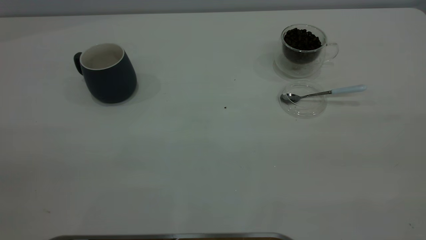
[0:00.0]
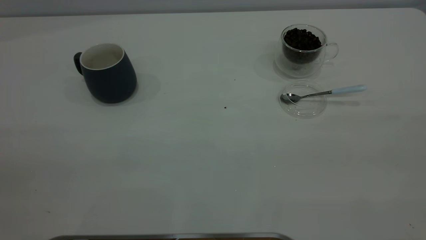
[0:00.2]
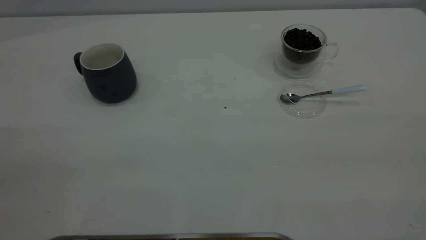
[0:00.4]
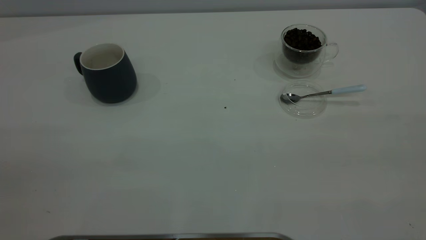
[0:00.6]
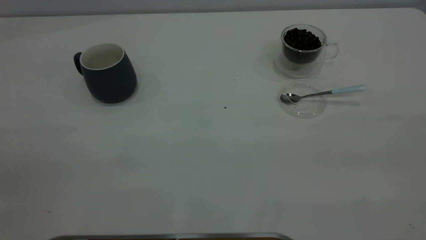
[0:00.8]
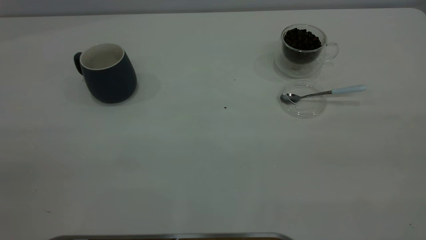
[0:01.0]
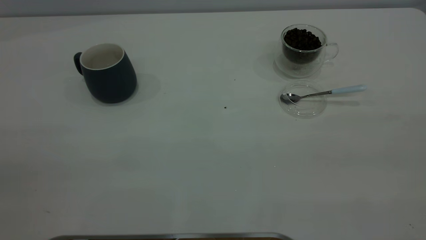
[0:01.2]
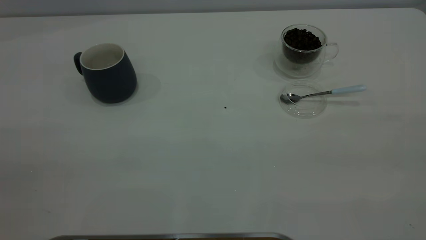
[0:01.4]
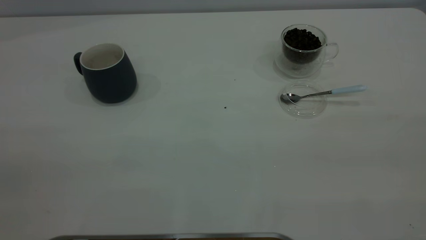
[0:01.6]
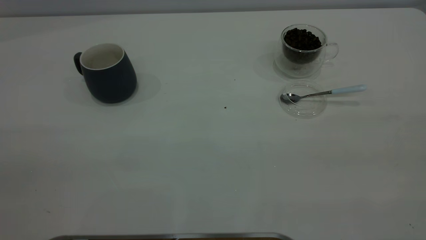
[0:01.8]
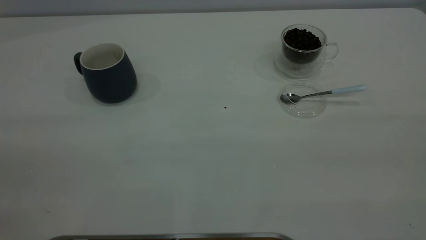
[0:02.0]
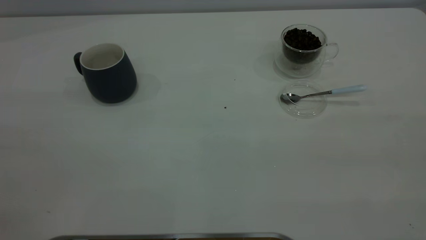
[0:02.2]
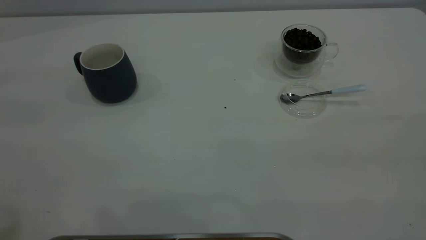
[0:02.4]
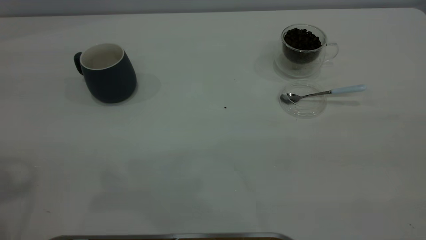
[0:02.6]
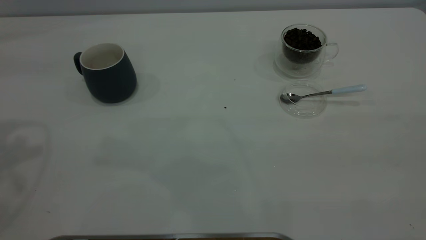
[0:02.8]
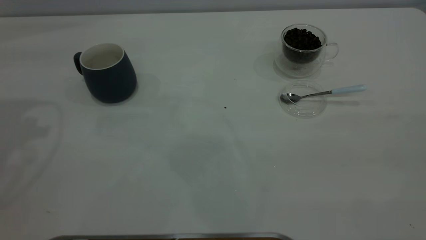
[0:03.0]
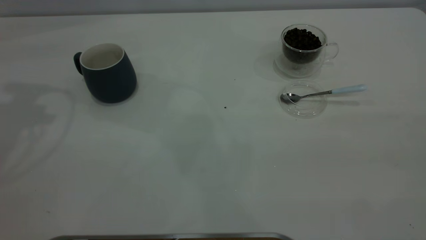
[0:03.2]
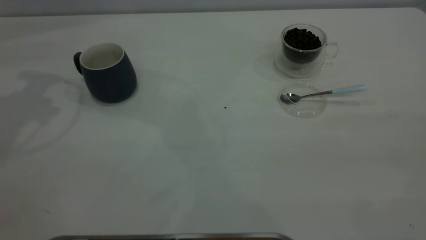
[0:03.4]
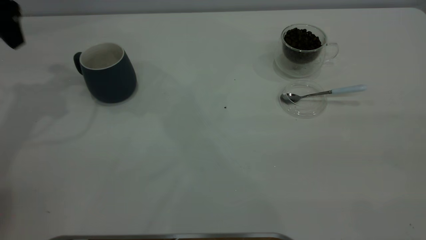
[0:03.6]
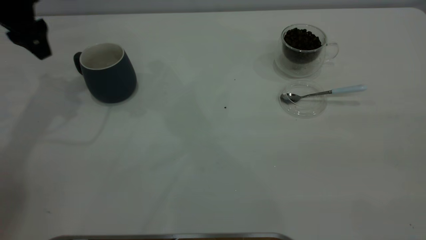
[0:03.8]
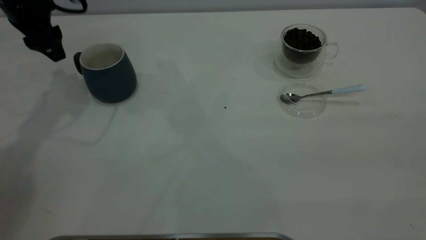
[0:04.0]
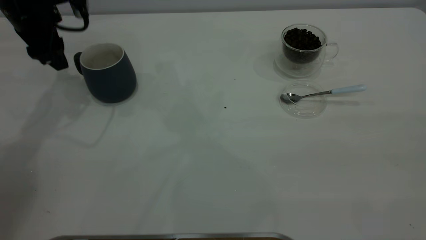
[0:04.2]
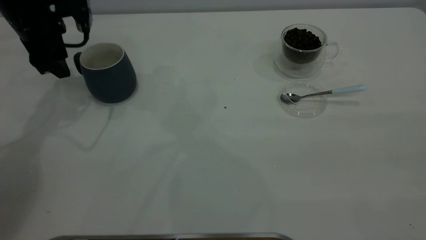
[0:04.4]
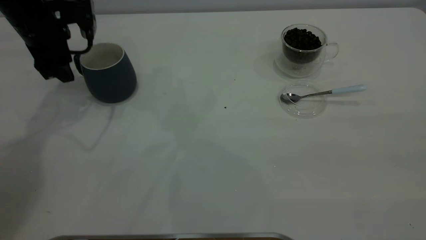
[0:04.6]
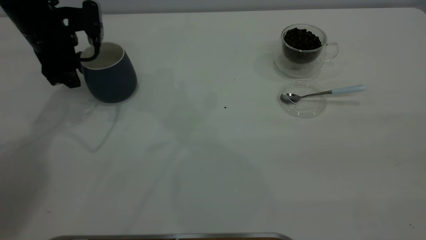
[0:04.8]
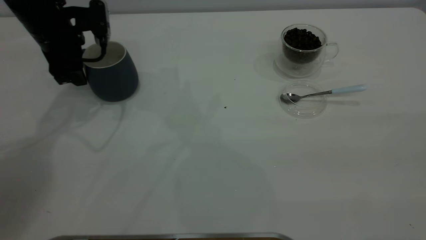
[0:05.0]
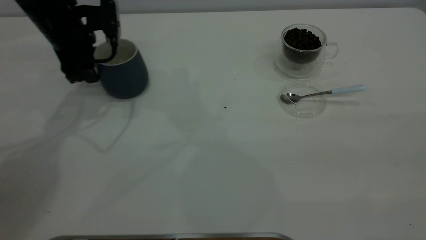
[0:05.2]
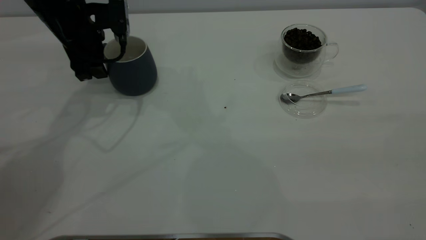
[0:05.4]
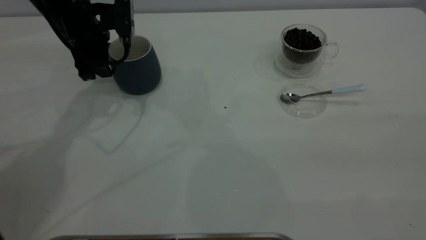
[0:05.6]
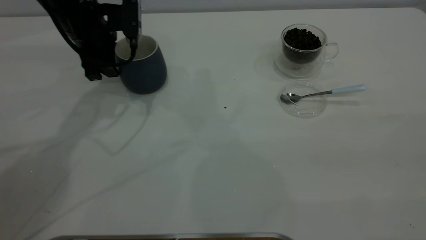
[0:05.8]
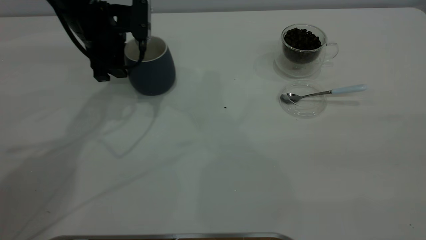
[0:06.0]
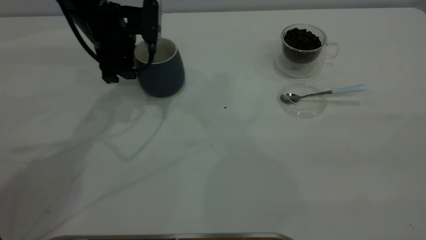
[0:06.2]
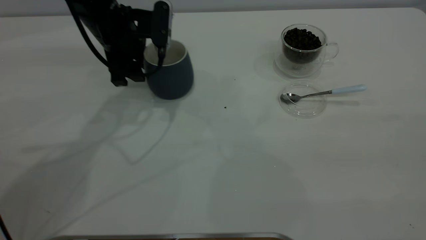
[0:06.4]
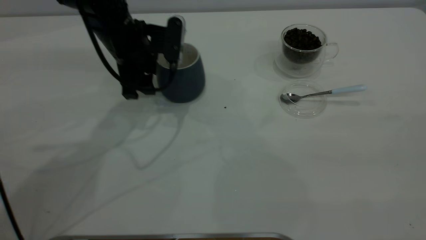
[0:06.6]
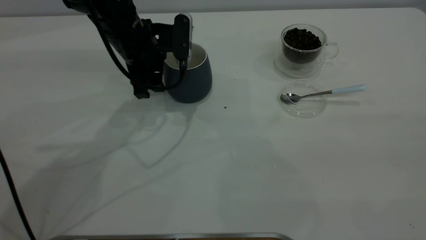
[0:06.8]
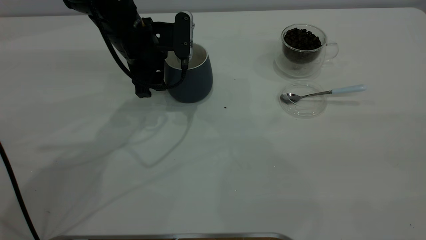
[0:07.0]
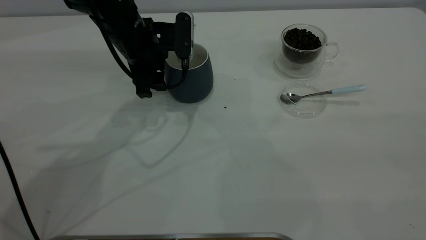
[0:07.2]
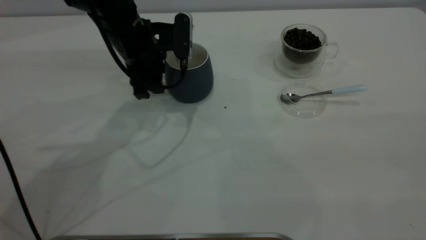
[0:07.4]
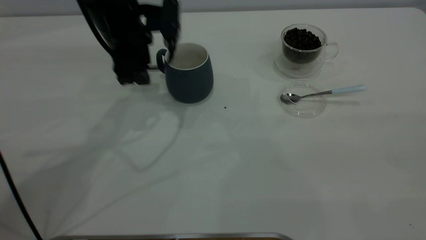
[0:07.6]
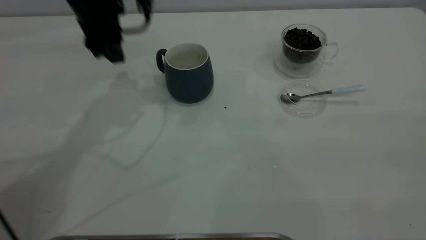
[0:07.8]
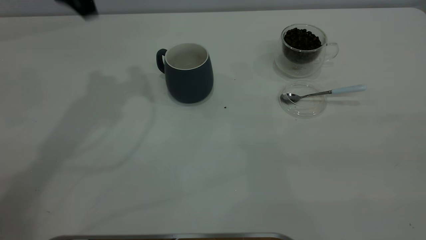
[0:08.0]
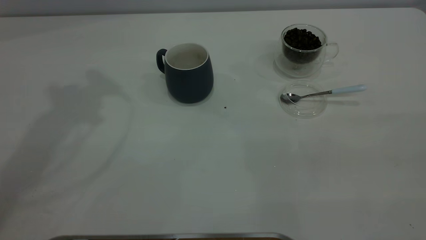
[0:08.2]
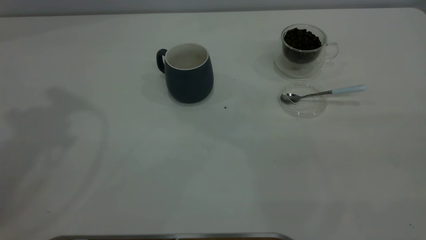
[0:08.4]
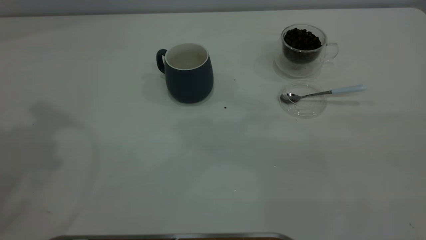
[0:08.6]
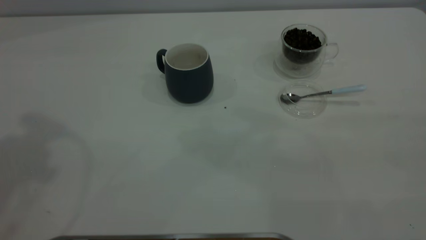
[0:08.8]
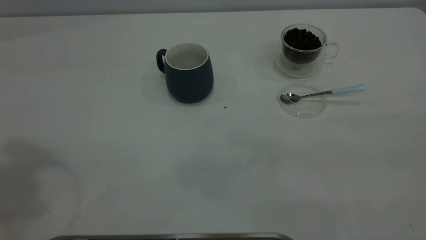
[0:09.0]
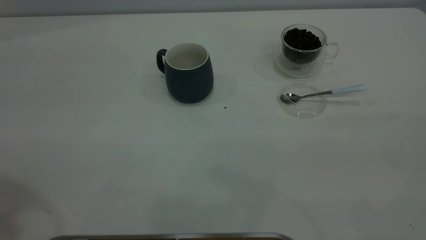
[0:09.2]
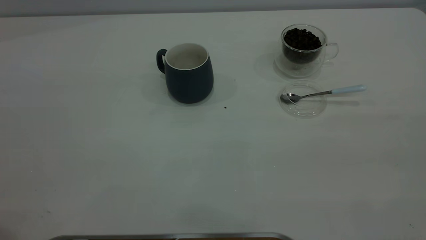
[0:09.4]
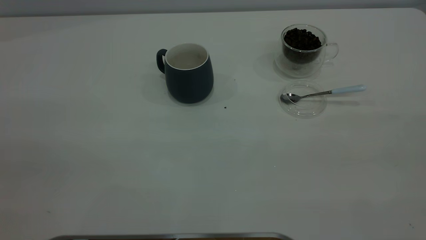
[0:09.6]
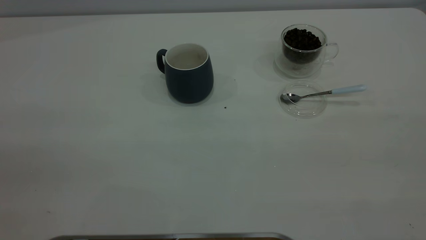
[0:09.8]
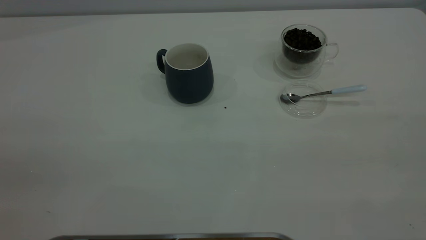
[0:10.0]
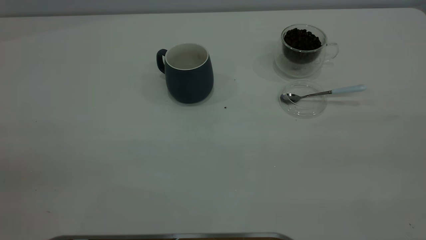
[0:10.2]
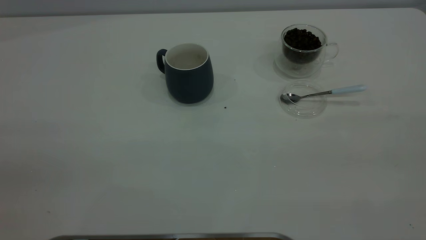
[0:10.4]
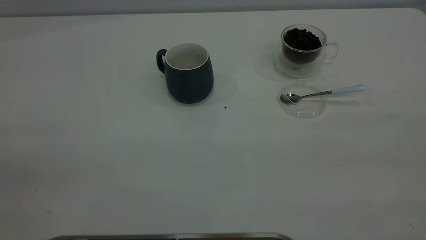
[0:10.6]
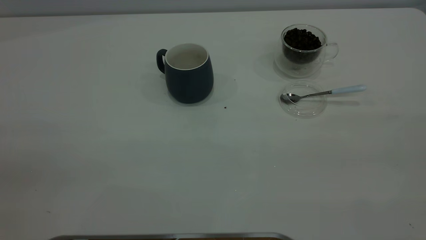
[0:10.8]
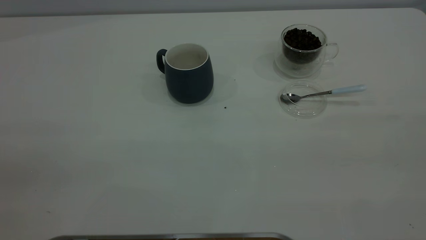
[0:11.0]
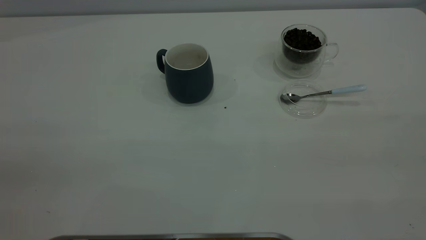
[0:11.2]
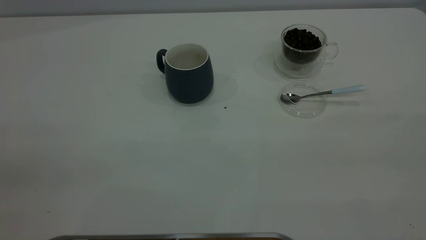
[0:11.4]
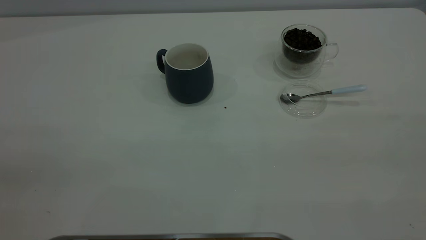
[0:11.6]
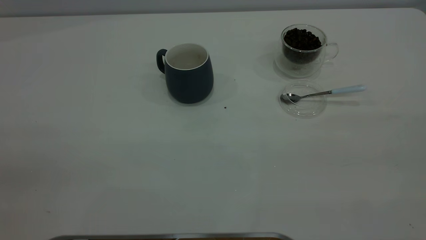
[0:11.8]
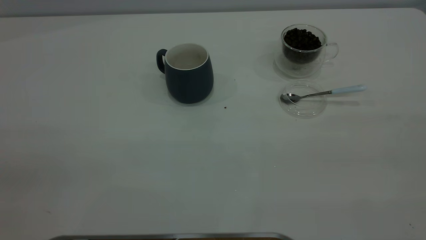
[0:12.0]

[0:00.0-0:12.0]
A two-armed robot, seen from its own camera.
Task of the whole recording: the left gripper place the grey cup in the center of the table, the right gripper take the blue spoon from the cup lid and scoop out the coffee beans from the coffee cup and put them into the grey cup, the right gripper put the spoon back into the cup lid.
Step, 0:00.0 to 0:07.6: Move the cup to the center of view.
0:00.0 to 0:01.6: Both grippers stay put.
0:03.0 to 0:04.4: The left gripper travels downward and forward by roughly 20 cm.
0:04.4 to 0:06.0: The left gripper heads to the right, covering some 10 cm.
0:07.6 to 0:09.0: The left gripper travels upward, backward and to the left by approximately 40 cm.
0:10.4 to 0:12.0: The two grippers keep their place.

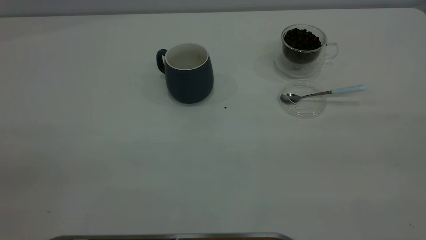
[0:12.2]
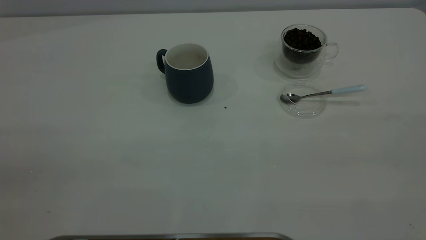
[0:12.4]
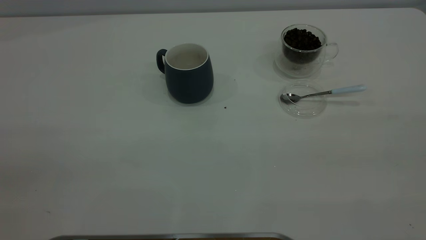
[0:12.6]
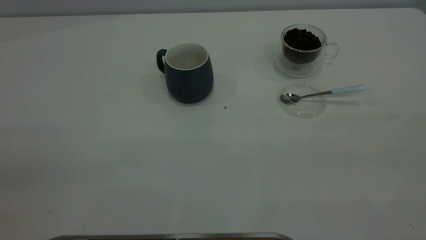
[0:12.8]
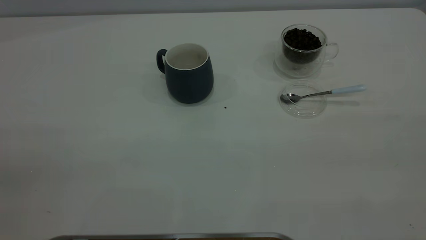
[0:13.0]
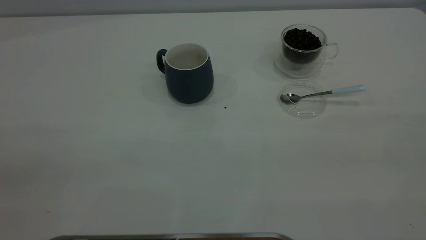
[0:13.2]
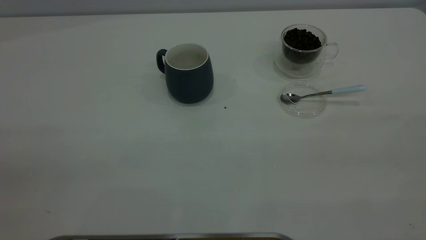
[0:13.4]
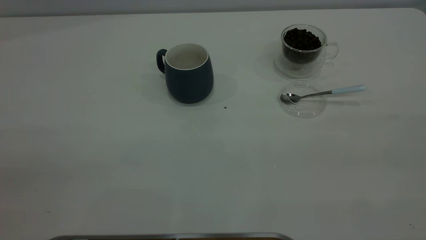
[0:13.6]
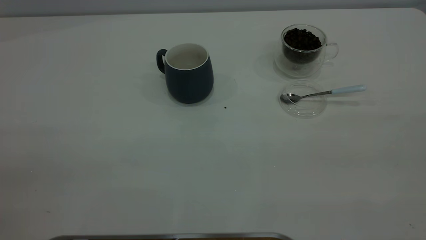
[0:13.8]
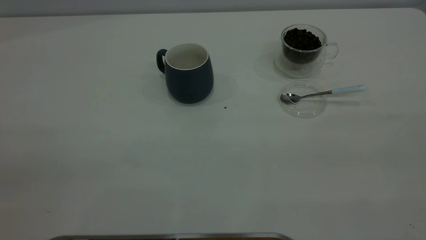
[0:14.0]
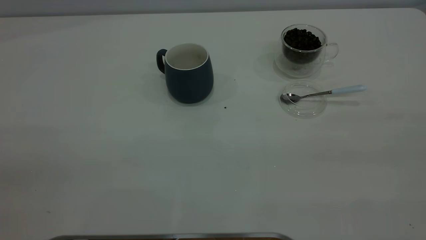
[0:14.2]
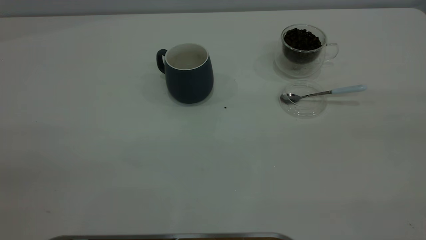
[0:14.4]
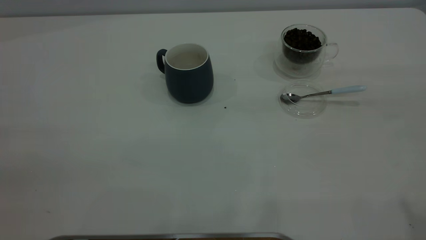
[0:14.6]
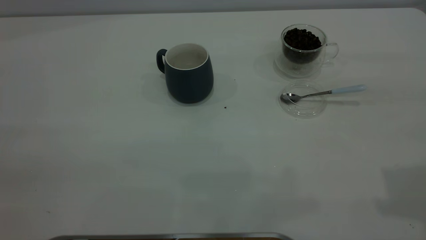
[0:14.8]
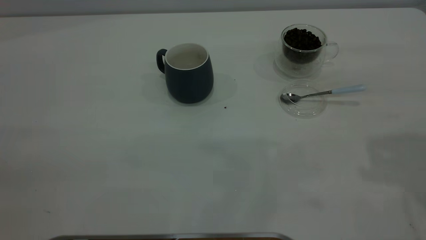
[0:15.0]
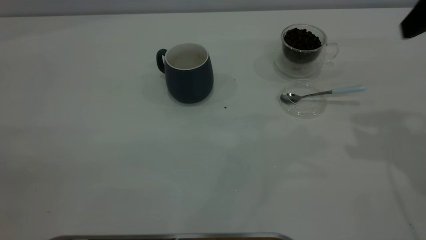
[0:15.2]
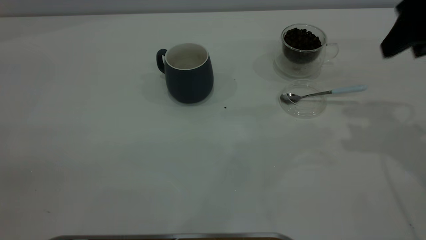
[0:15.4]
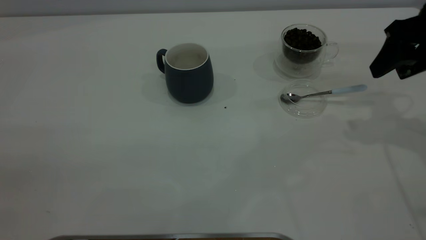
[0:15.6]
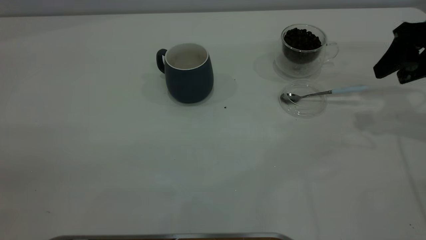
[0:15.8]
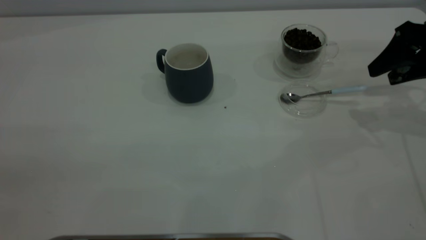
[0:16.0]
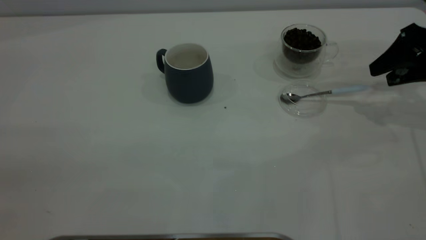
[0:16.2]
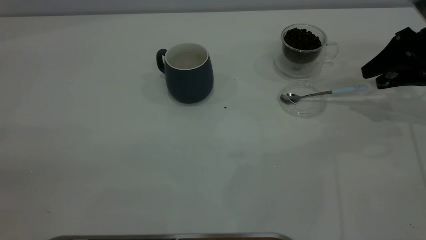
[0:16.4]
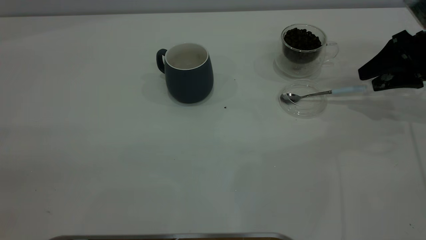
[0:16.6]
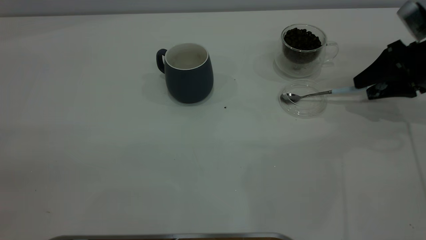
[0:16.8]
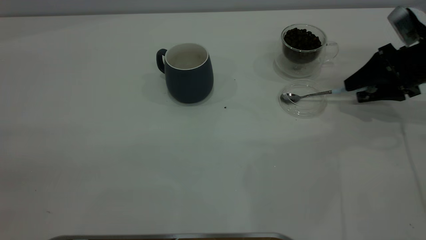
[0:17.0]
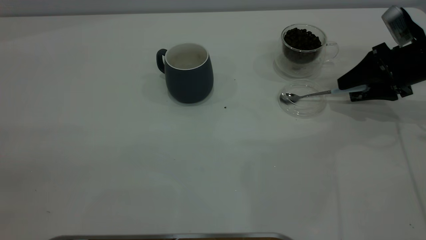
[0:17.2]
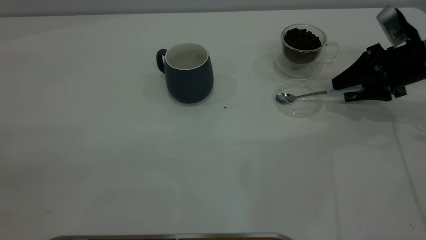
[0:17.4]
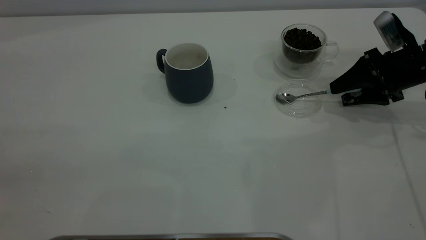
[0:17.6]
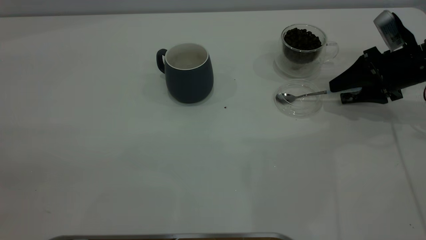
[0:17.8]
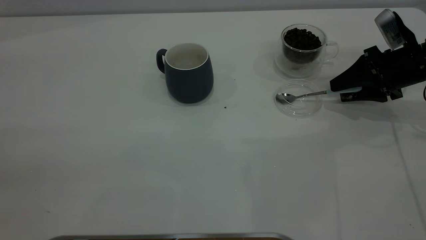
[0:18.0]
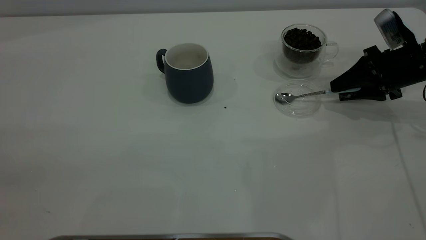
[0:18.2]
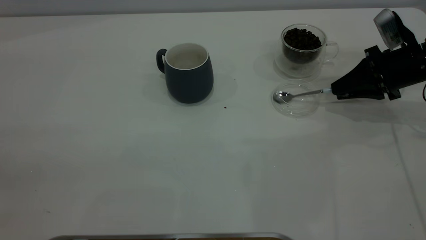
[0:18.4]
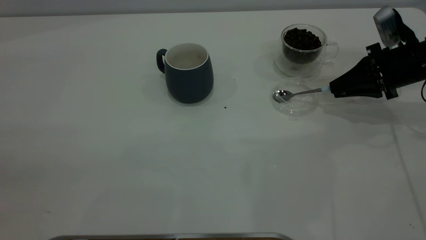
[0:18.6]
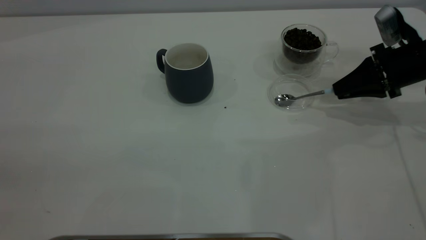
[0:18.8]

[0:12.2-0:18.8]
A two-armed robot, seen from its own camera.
Task of the whole recording: the left gripper place the grey cup in the center of the table, the right gripper take the blue spoon from the cup lid and scoop out the coffee beans from the coffee cup and put them into the grey cup, the right gripper put the spoon back into the cup lid.
0:12.2 to 0:13.8: Both grippers stay about where they are.
0:13.8 to 0:15.4: The right gripper moves forward and downward, roughly 35 cm, and opens its fingers.
0:15.4 to 0:17.2: The right gripper goes some 15 cm downward and forward.
0:17.2 to 0:18.8: The right gripper closes its fingers.
